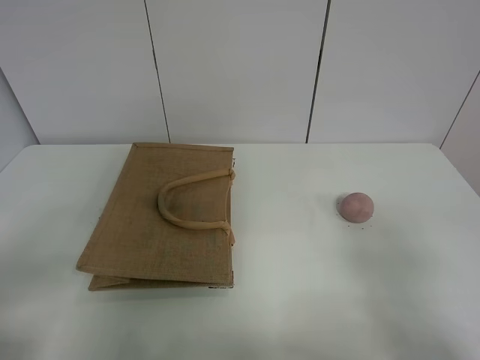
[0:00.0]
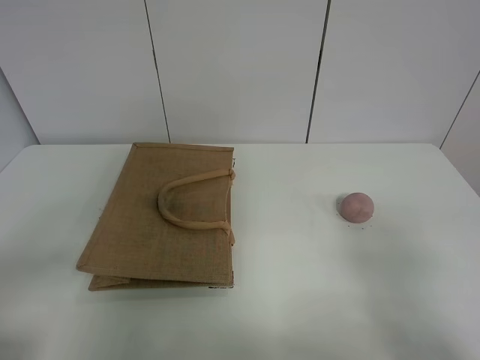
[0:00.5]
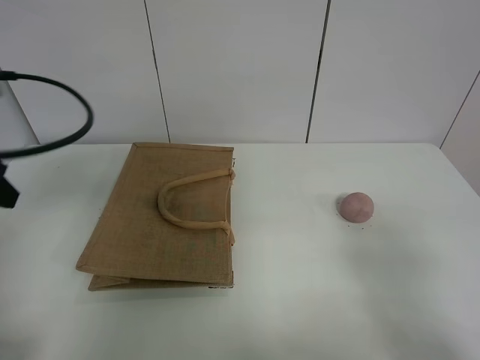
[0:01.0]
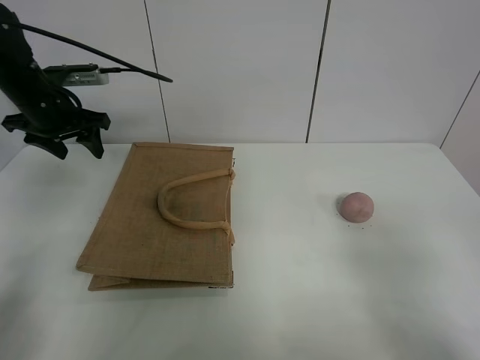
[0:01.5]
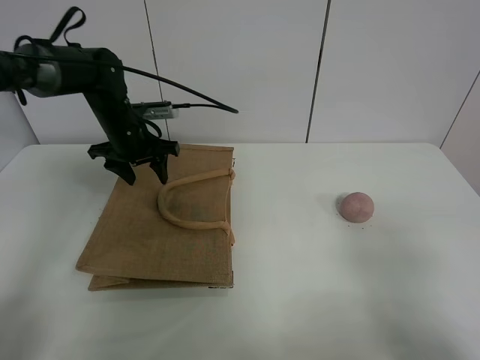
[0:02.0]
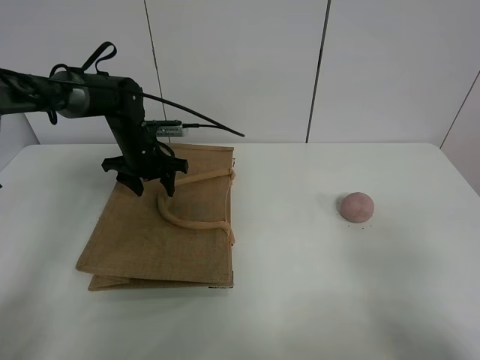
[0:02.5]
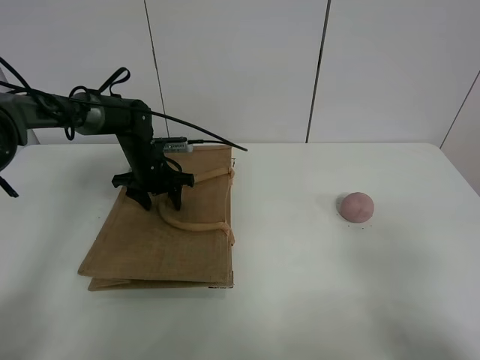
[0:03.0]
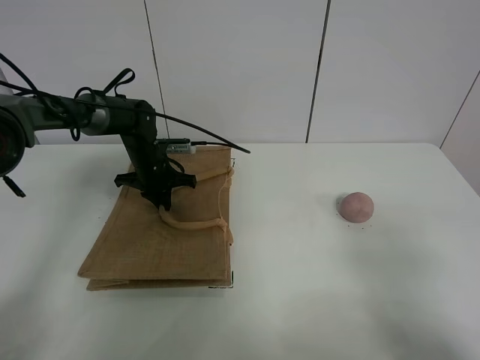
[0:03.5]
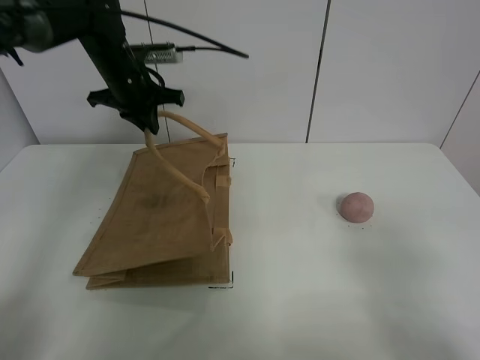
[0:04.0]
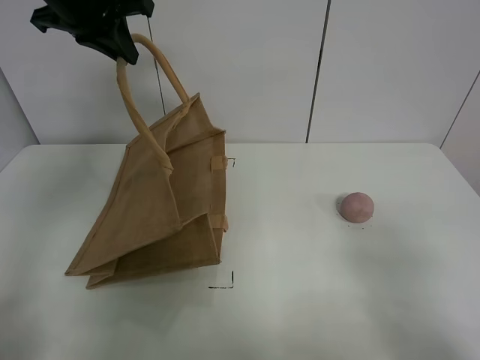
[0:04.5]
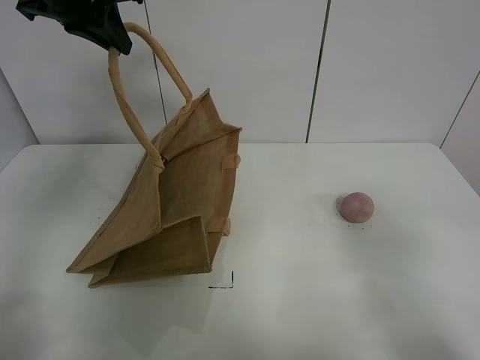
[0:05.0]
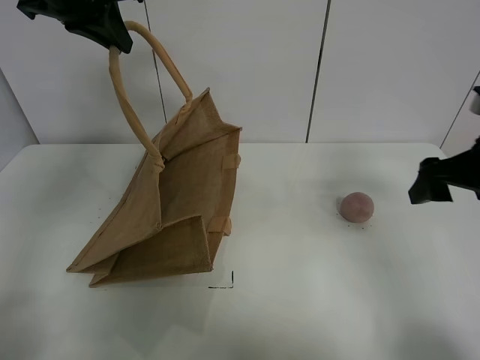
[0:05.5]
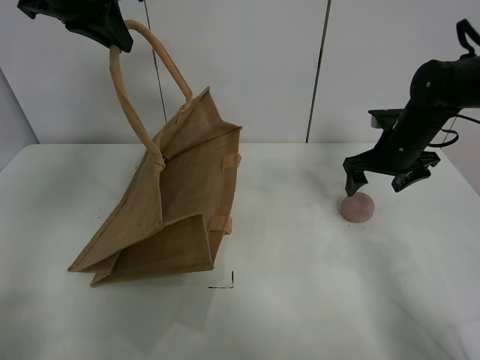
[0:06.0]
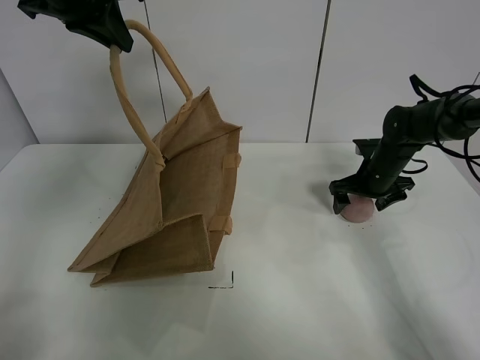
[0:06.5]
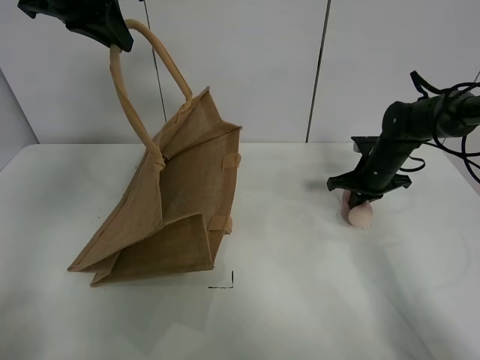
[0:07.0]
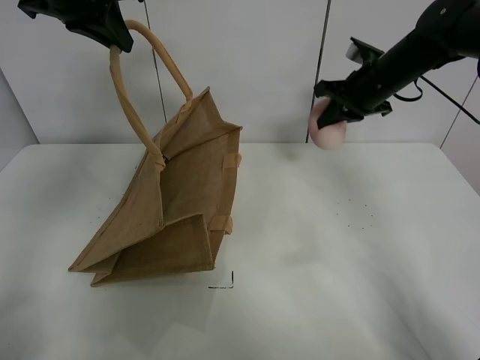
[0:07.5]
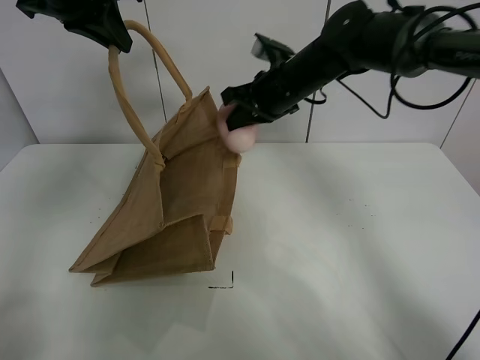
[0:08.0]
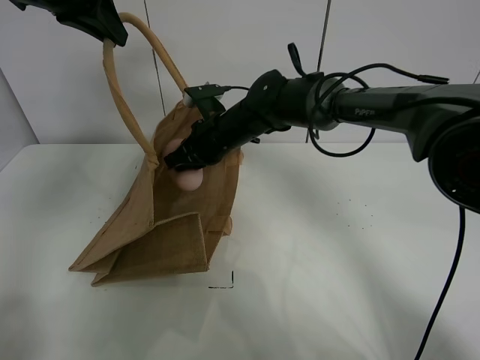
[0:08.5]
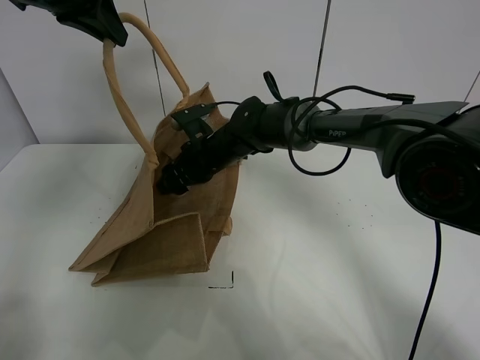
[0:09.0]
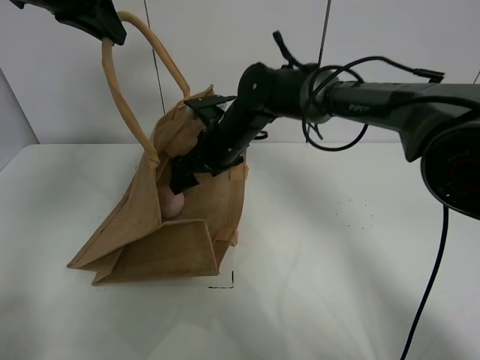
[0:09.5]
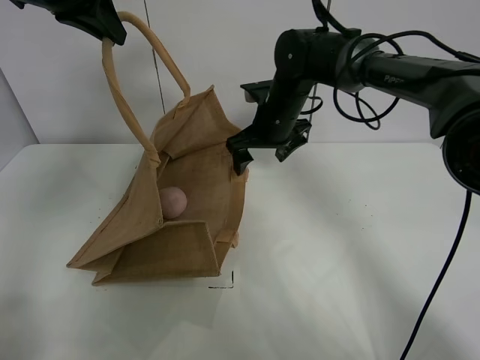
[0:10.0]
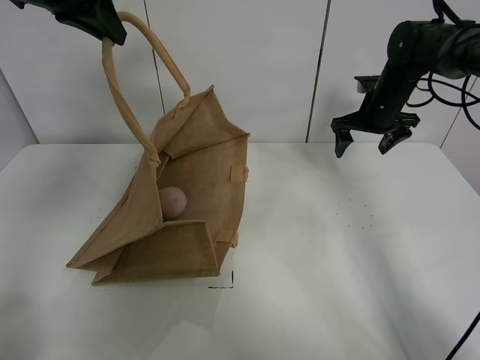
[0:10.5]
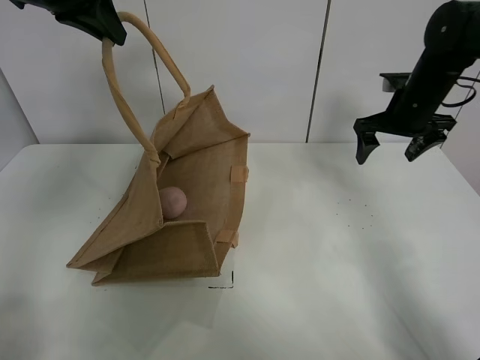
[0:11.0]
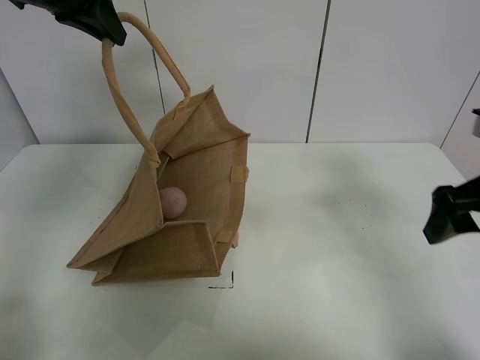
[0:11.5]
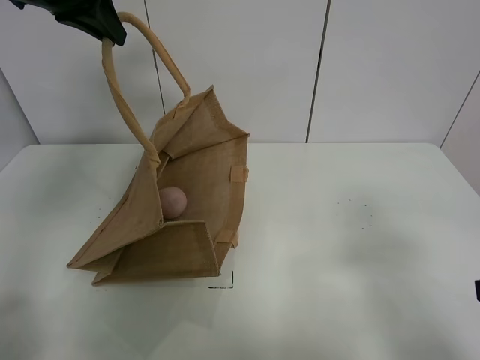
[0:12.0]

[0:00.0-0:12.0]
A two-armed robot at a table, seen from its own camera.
Task of the whole recording: open the brown linen bag and put the peach in the bag.
Step, 0:00.0 to 0:04.5: Lift the handbag with left gripper.
Step, 0:05.0 to 0:06.5: Grasp the peach with right gripper.
Step, 0:07.0 to 0:10.0: Place the peach in the handbag with right gripper.
0:00.0 to 0:02.0: The left gripper shifts roughly 40 cm forward.
0:02.0 to 0:04.0: The left gripper moves upward, some 10 cm, and closes up.
0:04.0 to 0:06.0: The right gripper is displaced forward by approximately 40 cm; the left gripper goes approximately 15 cm upward and backward.
0:06.0 to 0:08.0: The right gripper goes roughly 20 cm to the left, and closes up.
0:08.0 to 0:10.0: The right gripper moves approximately 10 cm to the left and comes back, and opens.
0:10.0 to 0:12.0: The right gripper travels backward and to the right by approximately 40 cm.

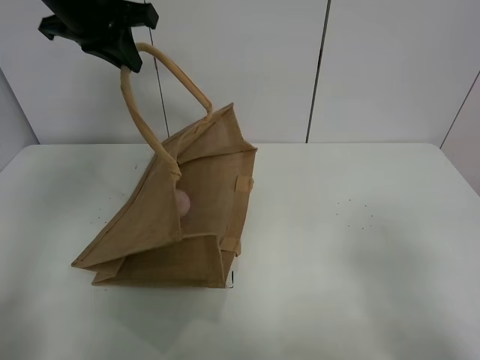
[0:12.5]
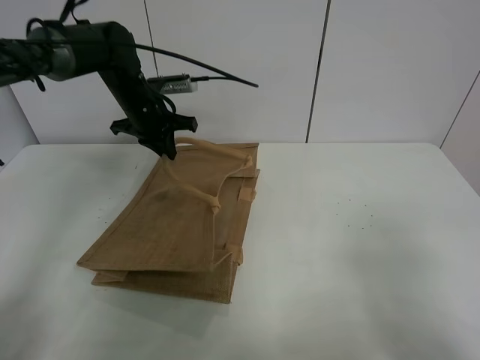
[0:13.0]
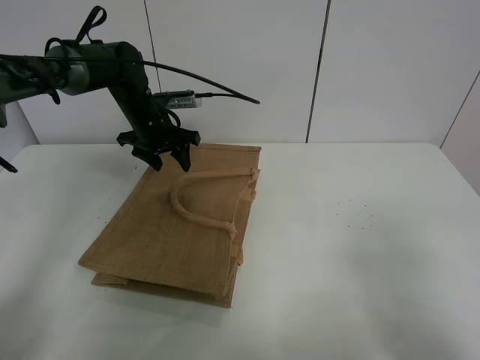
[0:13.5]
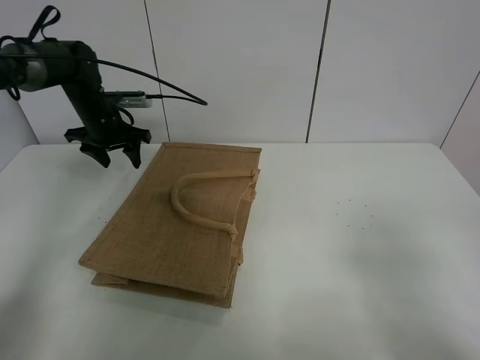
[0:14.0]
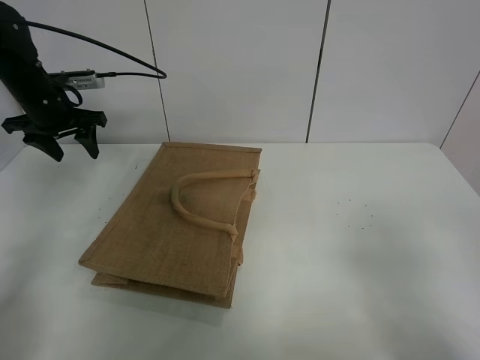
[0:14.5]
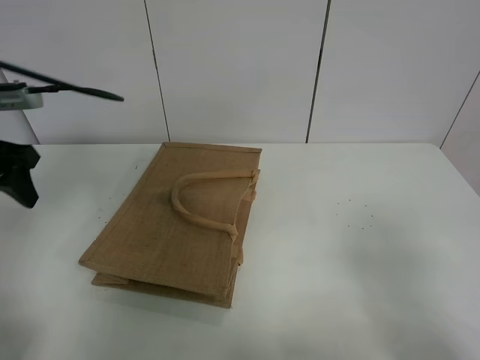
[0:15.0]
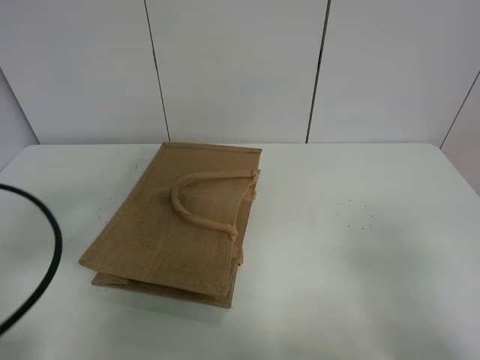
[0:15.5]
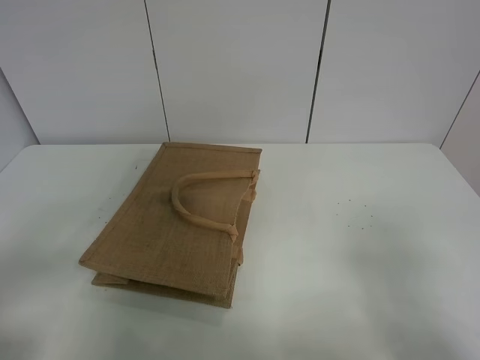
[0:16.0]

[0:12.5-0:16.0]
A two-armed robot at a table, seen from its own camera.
Task of the whole recording: open the brown linen bag and put the peach in the bag.
0:12.5 to 0:14.5: The left gripper goes some 20 cm downward and to the left, and opens up.
0:14.5 to 0:16.0: The left gripper moves backward, roughly 40 cm.
